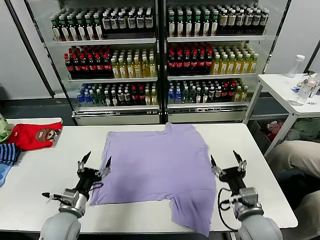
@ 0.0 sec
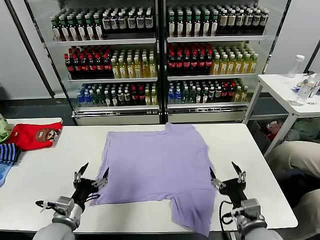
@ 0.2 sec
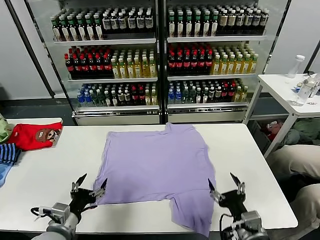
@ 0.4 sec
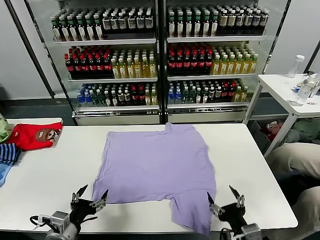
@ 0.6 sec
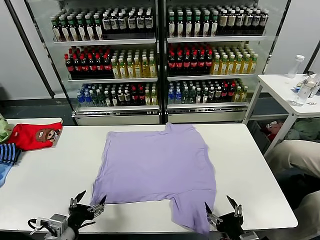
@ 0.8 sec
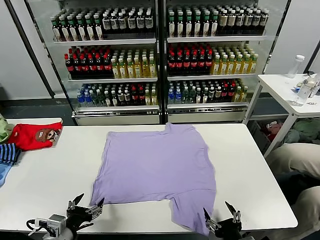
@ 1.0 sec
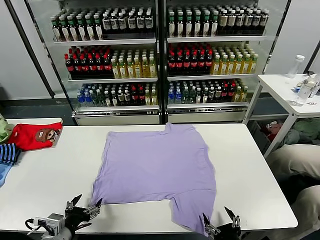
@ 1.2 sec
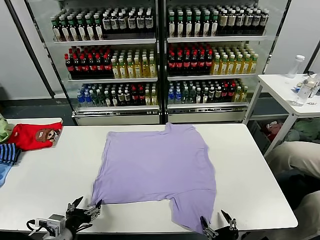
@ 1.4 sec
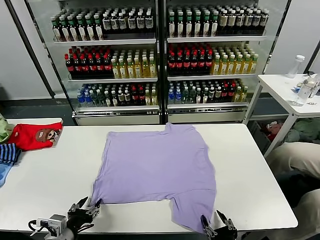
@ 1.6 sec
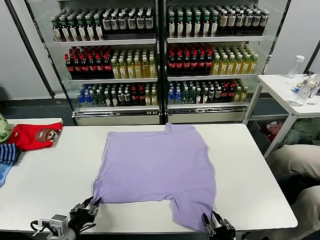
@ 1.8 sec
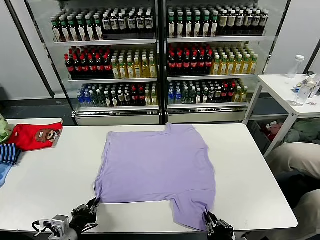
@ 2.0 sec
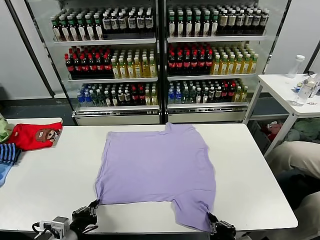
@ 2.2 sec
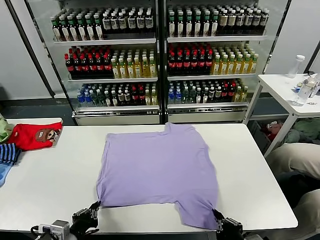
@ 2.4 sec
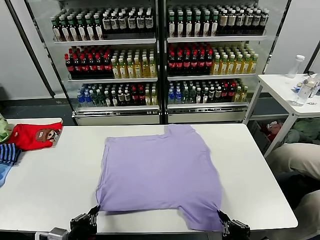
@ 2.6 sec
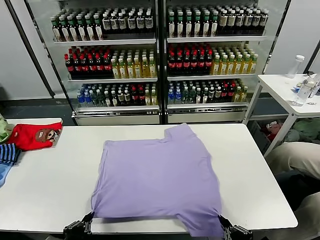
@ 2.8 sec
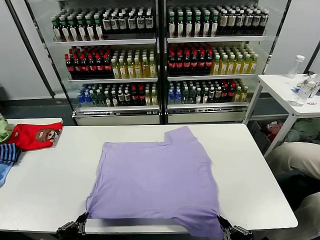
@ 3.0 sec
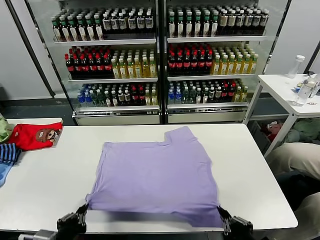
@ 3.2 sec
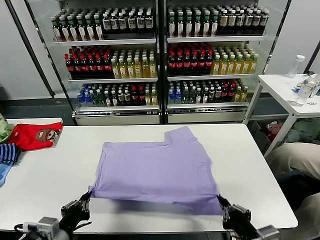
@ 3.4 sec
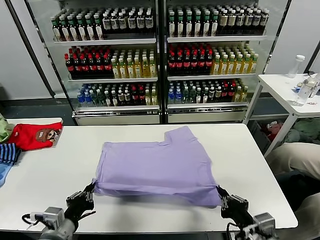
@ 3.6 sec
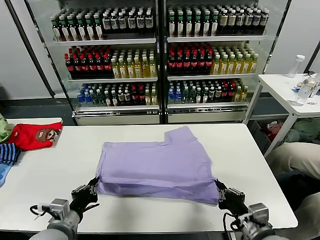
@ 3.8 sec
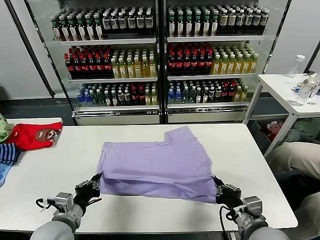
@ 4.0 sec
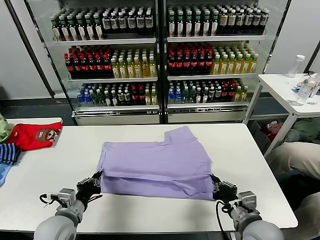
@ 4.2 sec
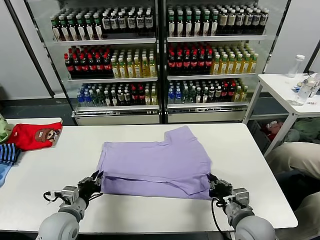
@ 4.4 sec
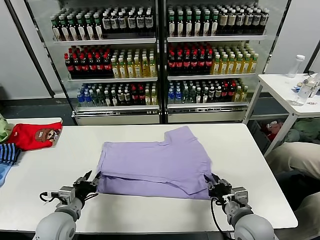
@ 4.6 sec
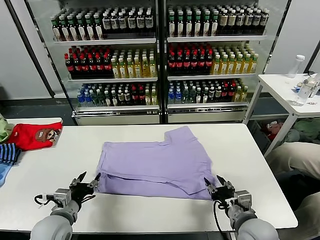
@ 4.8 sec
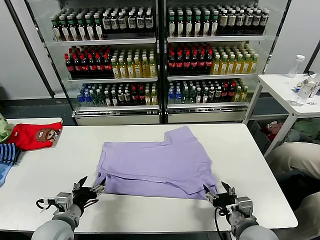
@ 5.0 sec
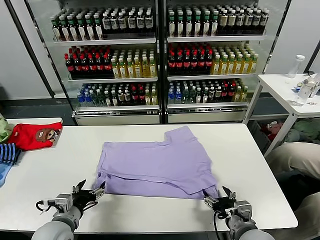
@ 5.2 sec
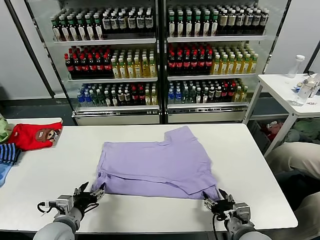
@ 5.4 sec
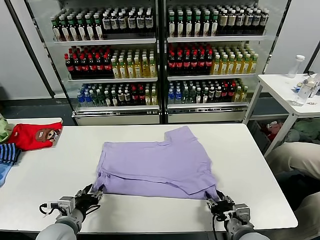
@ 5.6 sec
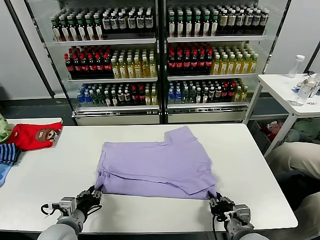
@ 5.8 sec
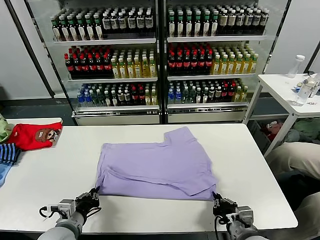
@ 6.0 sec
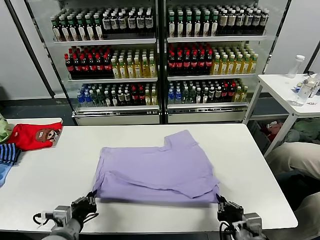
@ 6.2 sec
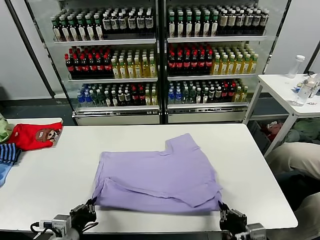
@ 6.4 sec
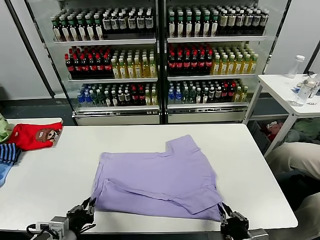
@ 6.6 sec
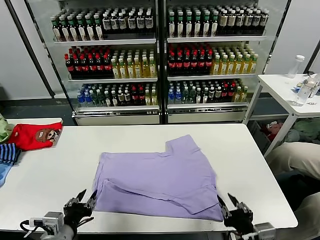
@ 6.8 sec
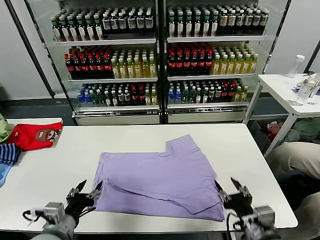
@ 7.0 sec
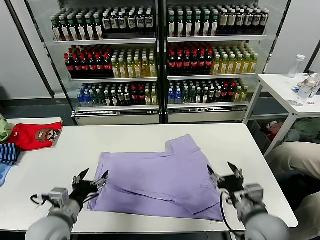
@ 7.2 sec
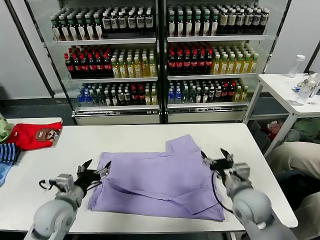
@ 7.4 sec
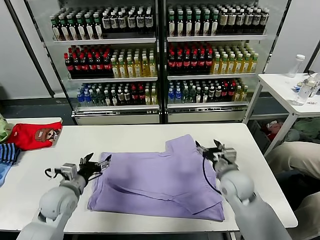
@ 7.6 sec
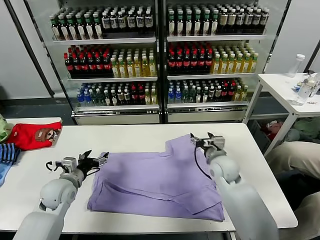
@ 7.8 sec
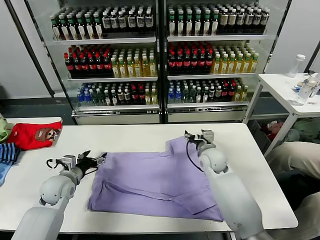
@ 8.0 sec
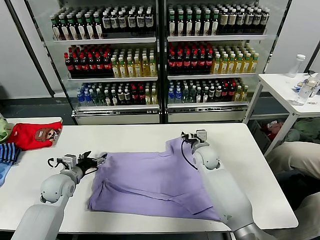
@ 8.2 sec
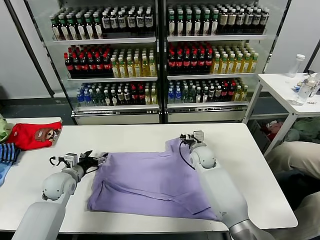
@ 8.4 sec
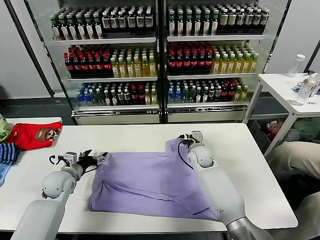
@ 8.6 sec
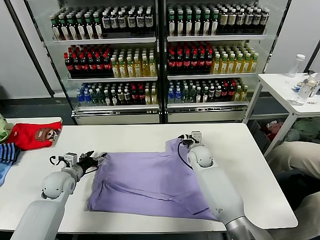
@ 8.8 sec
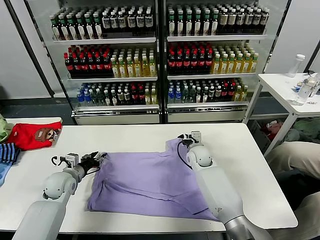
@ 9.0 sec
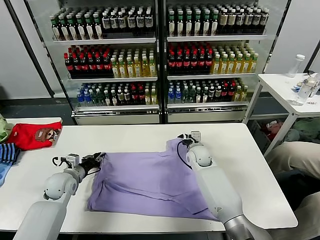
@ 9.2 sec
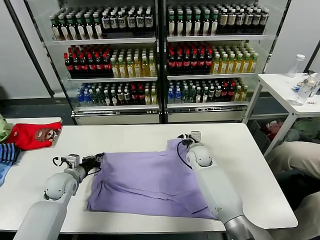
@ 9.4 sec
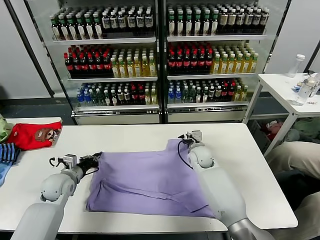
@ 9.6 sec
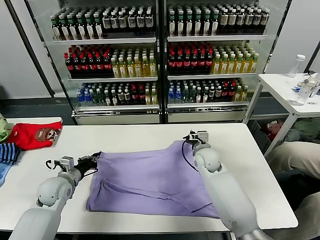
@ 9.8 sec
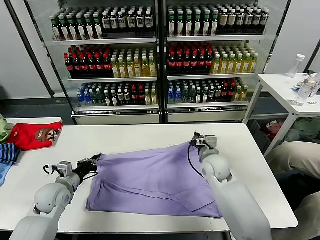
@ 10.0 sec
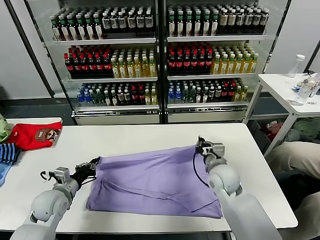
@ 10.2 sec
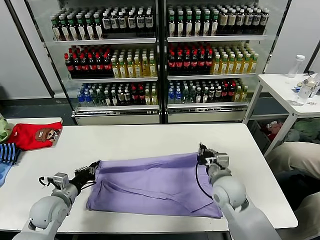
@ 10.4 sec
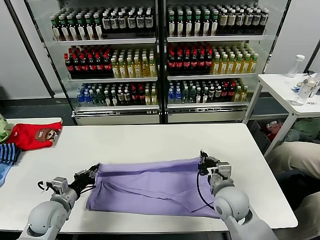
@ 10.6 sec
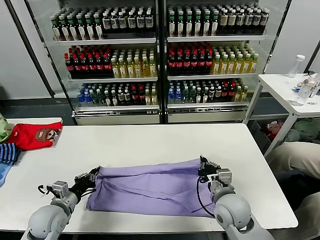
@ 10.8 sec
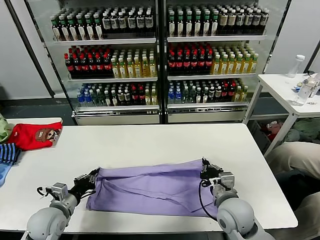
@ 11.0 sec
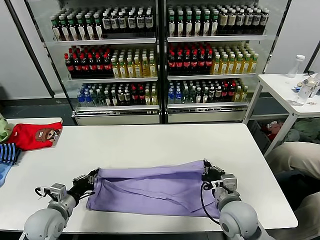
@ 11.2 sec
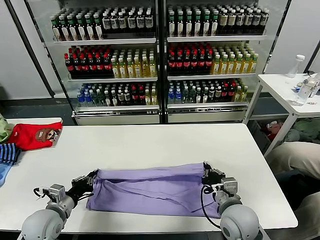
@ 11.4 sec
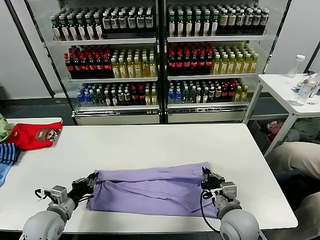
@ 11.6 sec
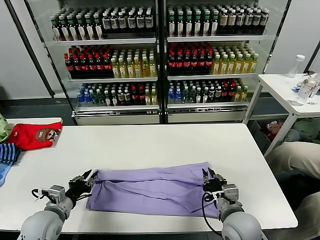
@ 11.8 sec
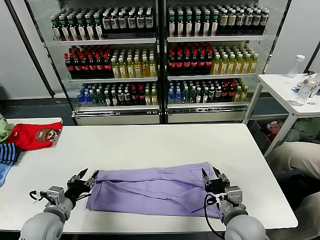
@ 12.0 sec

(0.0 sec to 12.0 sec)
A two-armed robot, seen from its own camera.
Task of the whole recording: fold and organize the clothes.
Step, 0.0 sec - 2.0 sec: use both grippers simultaneously to clamp the lower edge of the clothing fabric.
Step, 2.2 sec - 5.0 sec: use both grippers to drag the lower edge of the fabric forward and fold it over the upper edge.
Step, 5.2 sec - 7.0 sec: Drag the clothes downward with both gripper.
Step, 7.2 sec - 9.2 sec: use both grippers simultaneously to clamp the upper edge of the clothing fabric.
Step, 9.4 sec - 12.0 sec: use both grippers to drag the upper edge of the fabric backward and fold it over the lower edge.
1.6 sec - 3.0 sec: The right gripper moves upward, roughly 10 cm, and closes its fingers. The left gripper goes roughly 10 cm backward and upward, and closes.
3.0 sec - 4.4 sec: The right gripper is displaced forward and downward by roughly 15 cm, and opens up, while the left gripper goes some 15 cm forward.
4.4 sec - 6.0 sec: The left gripper opens, then closes once more; the right gripper goes roughly 5 cm backward, and opens, then closes again.
6.0 sec - 7.6 sec: The left gripper is displaced forward by roughly 10 cm, and opens its fingers, while the right gripper moves forward, roughly 25 cm, and opens up.
7.6 sec - 9.0 sec: The left gripper shifts some 10 cm forward and to the left, and closes up. Meanwhile the right gripper travels forward, to the left and downward by approximately 15 cm, and closes its fingers.
9.0 sec - 10.4 sec: The left gripper travels backward by some 10 cm, and closes up; the right gripper is displaced backward by roughly 20 cm, and closes.
10.4 sec - 12.0 sec: The right gripper goes some 10 cm backward, and opens; the left gripper shifts some 5 cm backward, and opens its fingers.

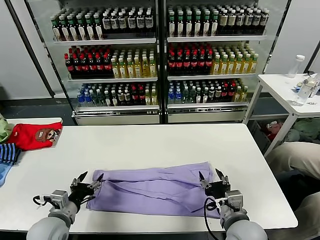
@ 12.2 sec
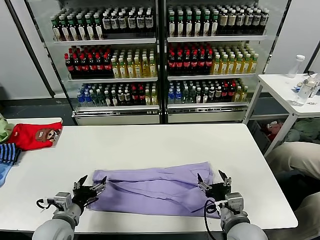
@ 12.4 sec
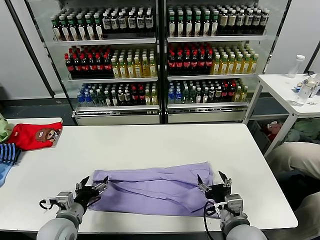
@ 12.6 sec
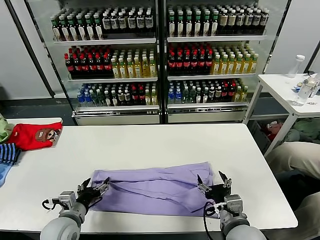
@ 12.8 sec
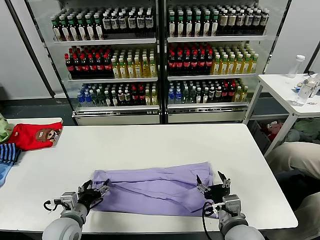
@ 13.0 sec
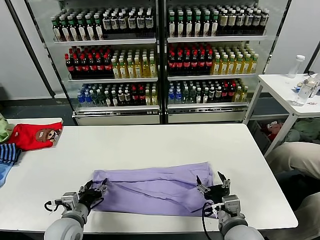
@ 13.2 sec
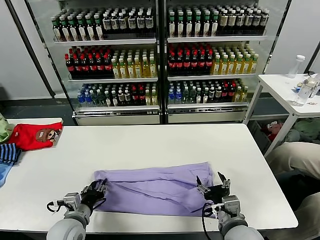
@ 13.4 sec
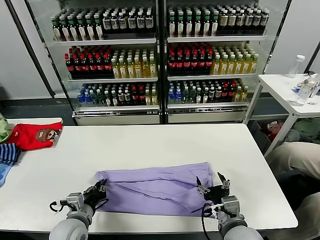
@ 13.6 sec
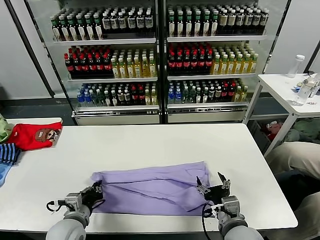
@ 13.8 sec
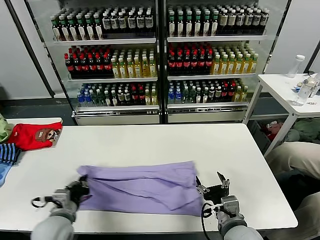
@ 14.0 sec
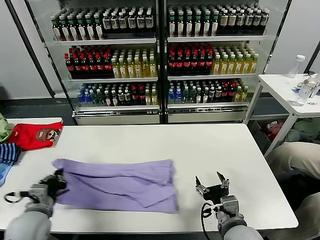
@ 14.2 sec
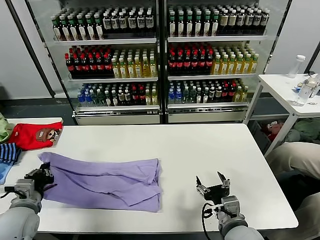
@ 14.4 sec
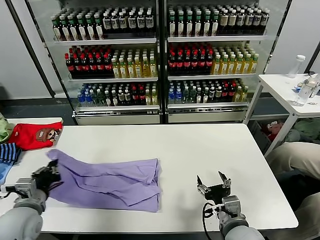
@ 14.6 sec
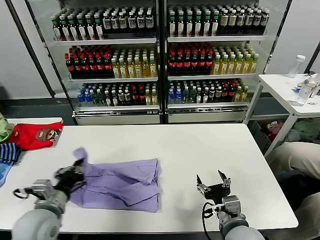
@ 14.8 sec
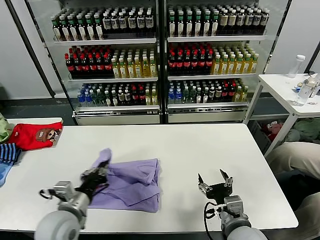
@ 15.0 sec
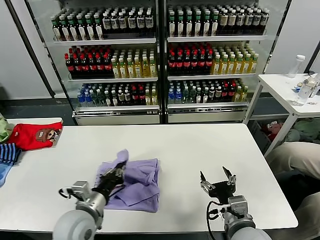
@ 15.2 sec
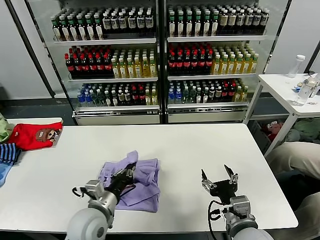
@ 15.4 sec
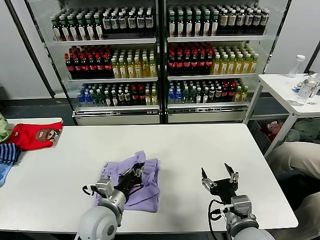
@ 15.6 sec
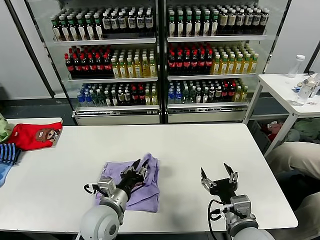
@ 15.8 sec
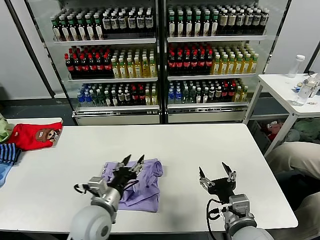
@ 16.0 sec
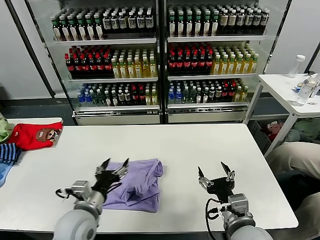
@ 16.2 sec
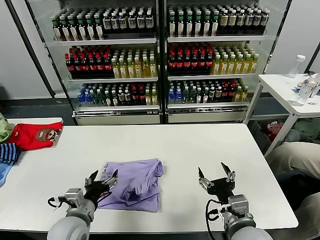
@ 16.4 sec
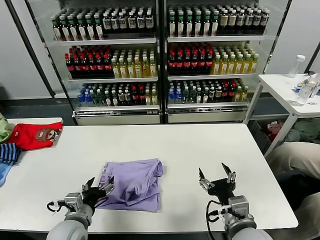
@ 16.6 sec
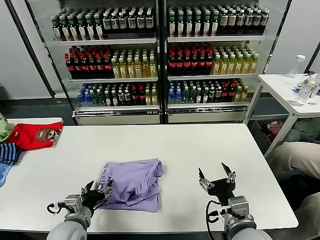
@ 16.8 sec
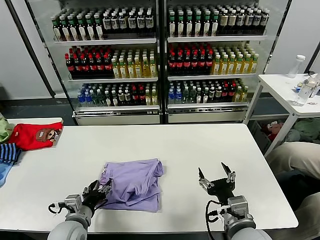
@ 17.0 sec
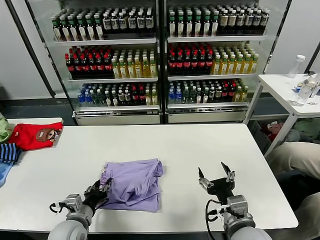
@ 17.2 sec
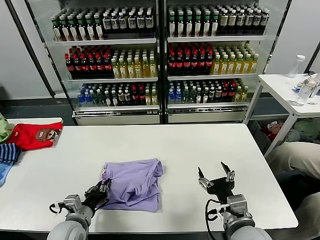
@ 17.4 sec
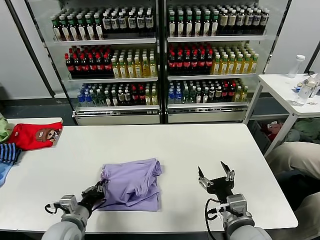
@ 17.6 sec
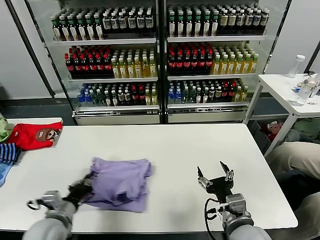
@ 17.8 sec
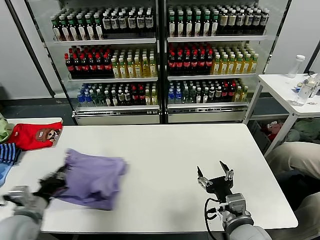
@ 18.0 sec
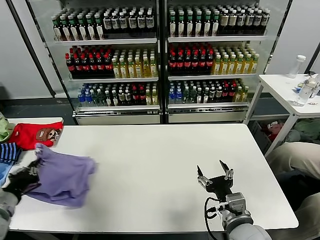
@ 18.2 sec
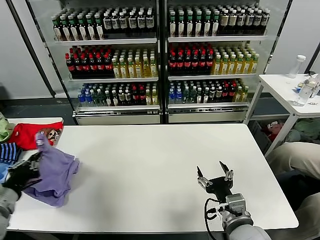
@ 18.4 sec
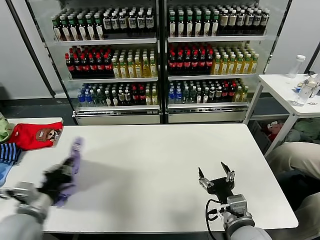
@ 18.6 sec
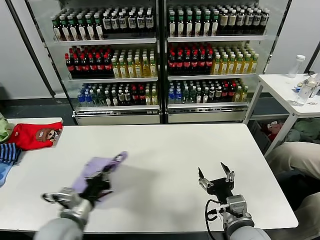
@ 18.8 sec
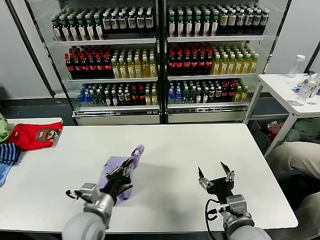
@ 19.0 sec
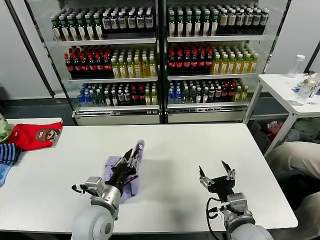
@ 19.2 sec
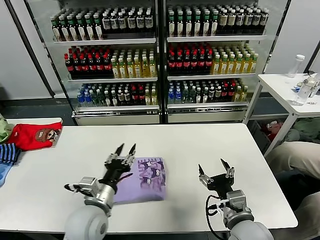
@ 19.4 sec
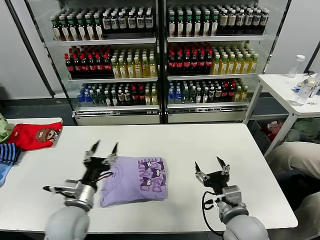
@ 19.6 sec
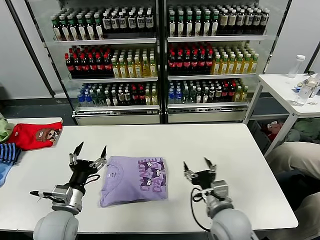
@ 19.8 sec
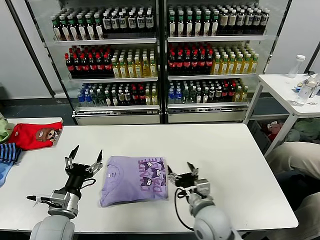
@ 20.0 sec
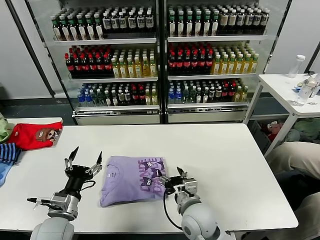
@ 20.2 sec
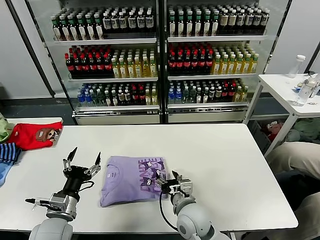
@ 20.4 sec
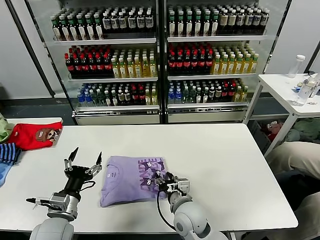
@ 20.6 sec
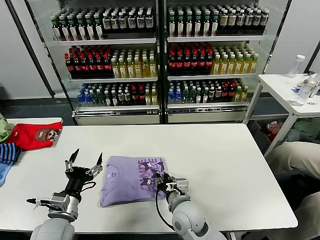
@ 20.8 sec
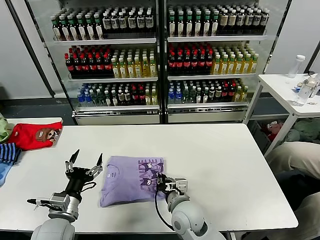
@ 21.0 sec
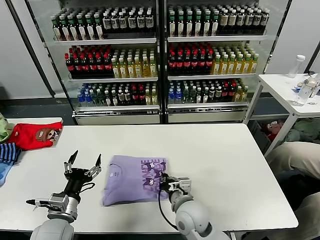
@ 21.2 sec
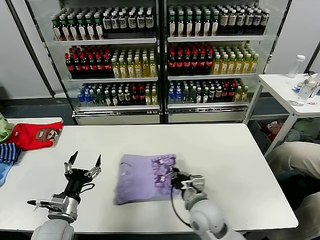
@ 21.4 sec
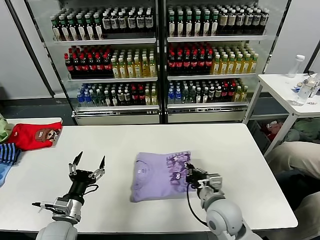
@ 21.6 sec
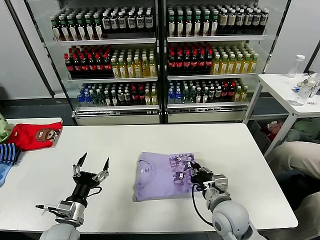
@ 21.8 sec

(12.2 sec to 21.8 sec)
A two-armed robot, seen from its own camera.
Task of the whole recording: fold and organize the clothes.
Step, 12.2 sec - 13.8 sec: use the left gripper to clamp the left edge of the fabric.
Step, 14.0 sec - 16.0 sec: use the left gripper to drag the left edge of the fabric to the left and folds it over the right edge.
Step, 16.4 sec - 19.6 sec: Flip the folded clothes over with left gripper.
12.2 sec - 13.8 sec: The left gripper moves to the right, about 5 cm, and closes its fingers.
13.8 sec - 15.4 sec: The left gripper moves to the right and upward, approximately 10 cm.
15.4 sec - 17.0 sec: The left gripper travels to the left and downward by approximately 10 cm, and opens up.
17.0 sec - 18.6 sec: The left gripper heads upward and to the left, covering roughly 15 cm, and closes its fingers.
18.6 sec - 20.2 sec: The right gripper shifts about 15 cm to the left, forward and downward. The left gripper goes roughly 10 cm downward and to the right, and opens.
20.2 sec - 21.8 sec: The right gripper heads to the right, covering roughly 10 cm, and closes.
